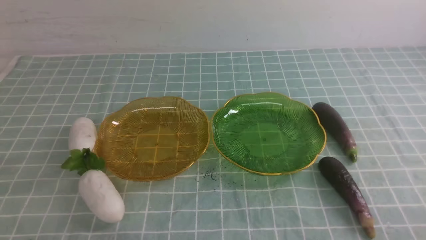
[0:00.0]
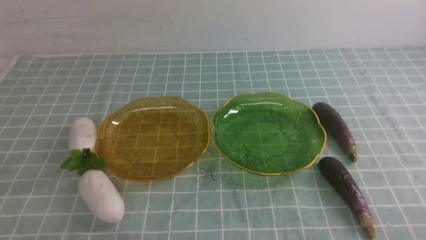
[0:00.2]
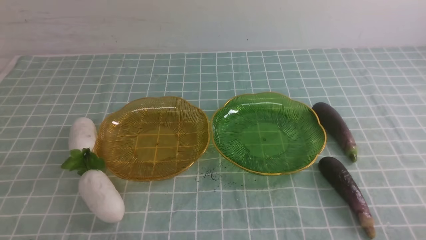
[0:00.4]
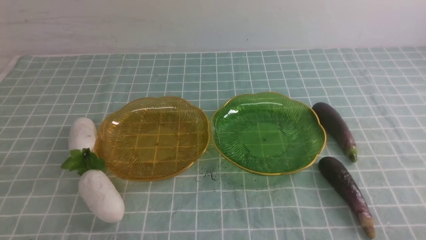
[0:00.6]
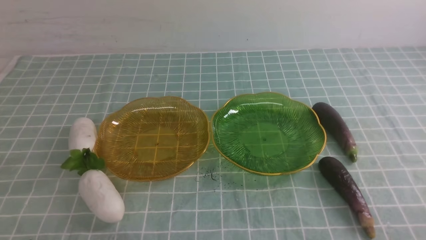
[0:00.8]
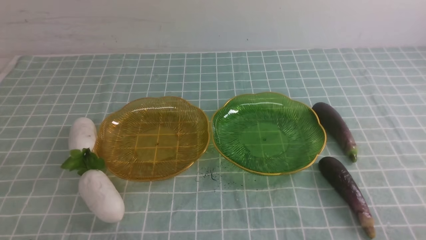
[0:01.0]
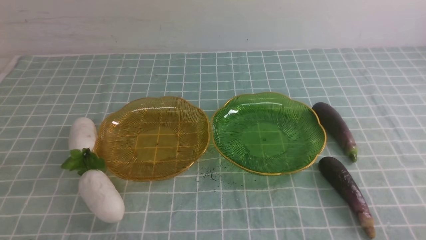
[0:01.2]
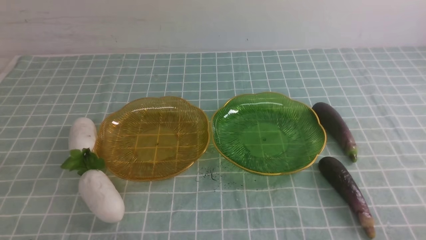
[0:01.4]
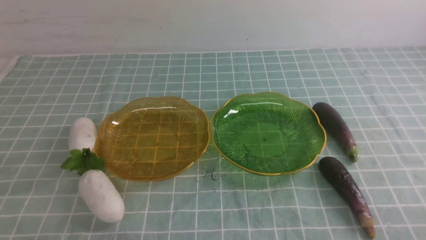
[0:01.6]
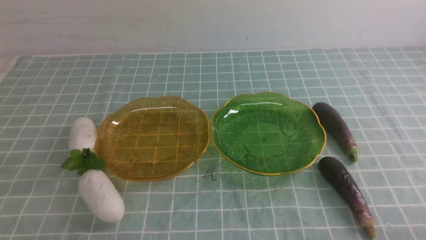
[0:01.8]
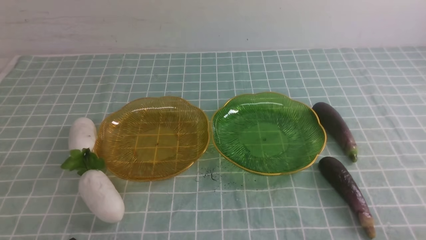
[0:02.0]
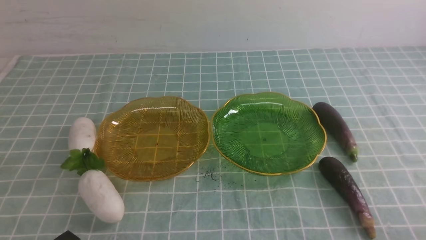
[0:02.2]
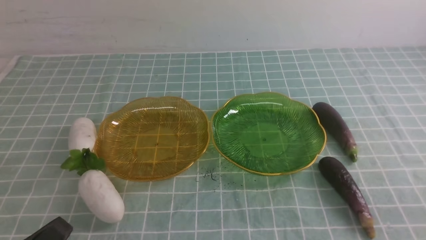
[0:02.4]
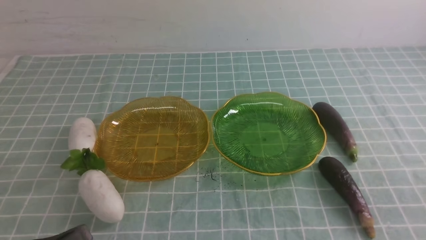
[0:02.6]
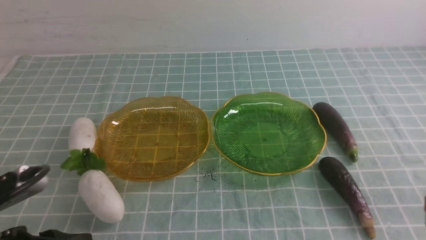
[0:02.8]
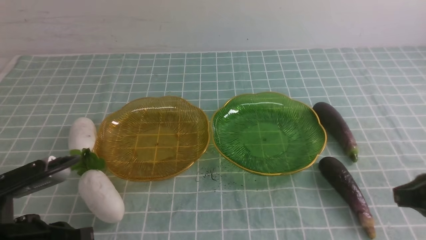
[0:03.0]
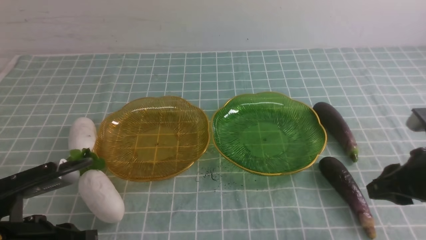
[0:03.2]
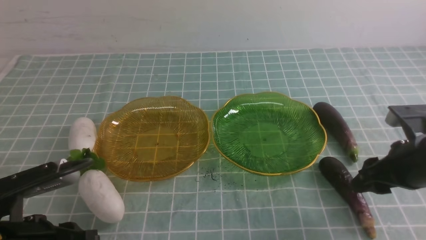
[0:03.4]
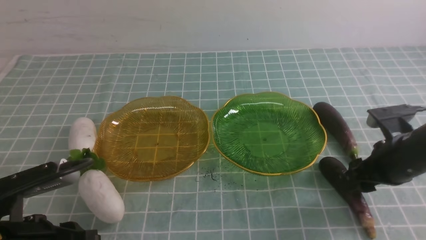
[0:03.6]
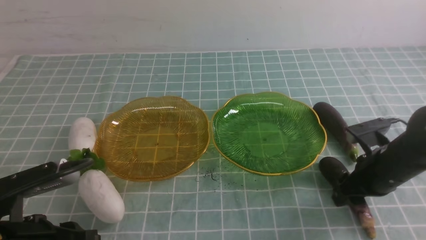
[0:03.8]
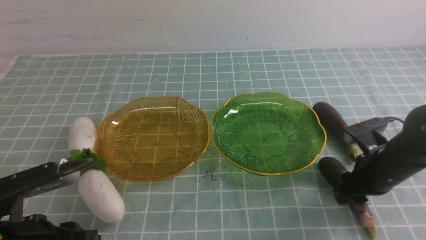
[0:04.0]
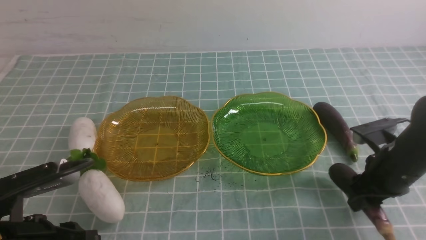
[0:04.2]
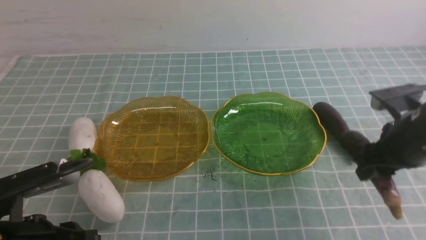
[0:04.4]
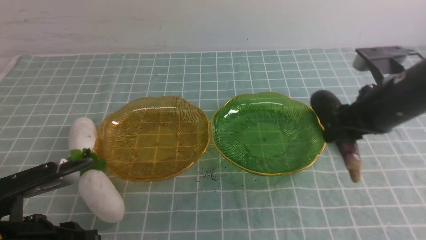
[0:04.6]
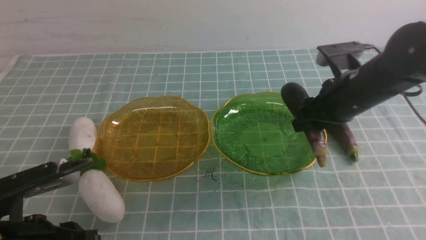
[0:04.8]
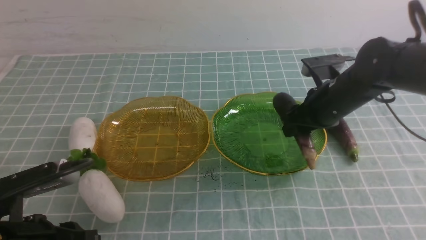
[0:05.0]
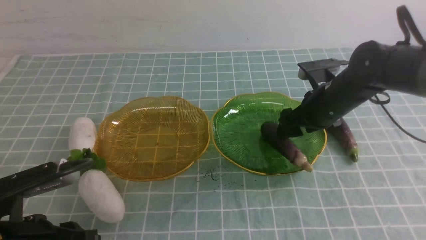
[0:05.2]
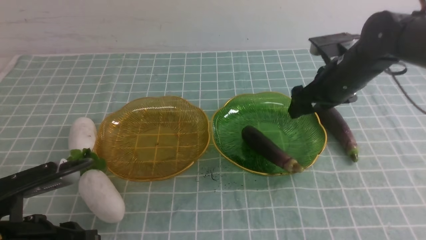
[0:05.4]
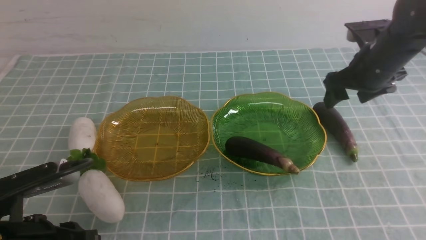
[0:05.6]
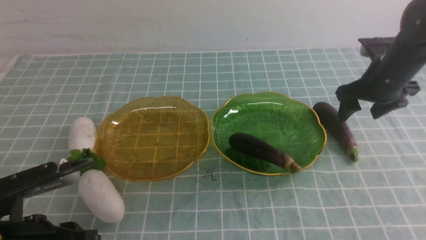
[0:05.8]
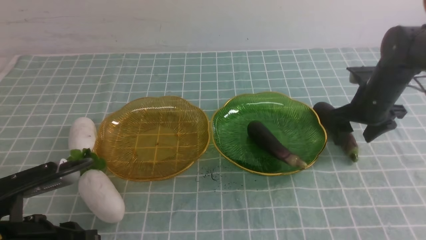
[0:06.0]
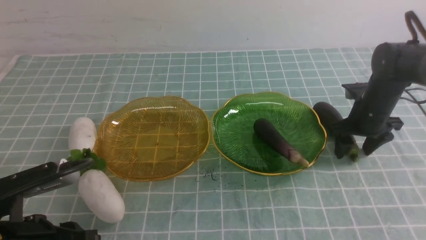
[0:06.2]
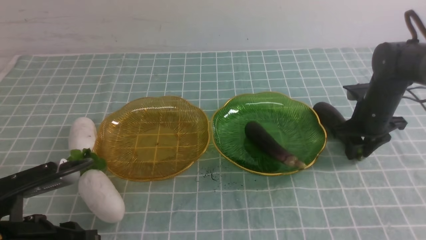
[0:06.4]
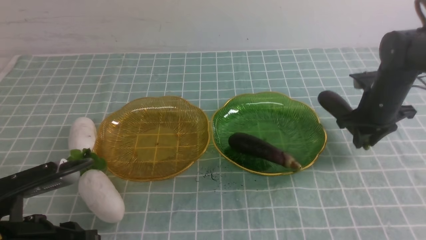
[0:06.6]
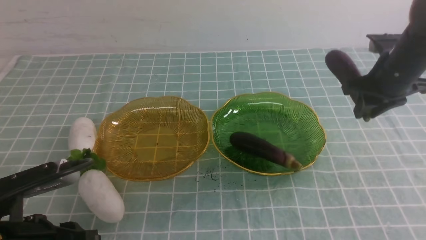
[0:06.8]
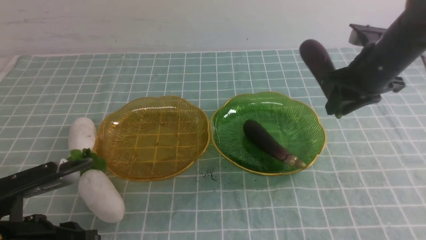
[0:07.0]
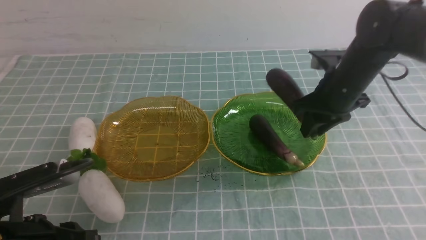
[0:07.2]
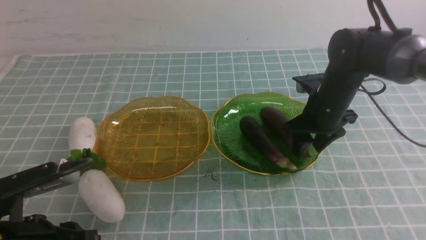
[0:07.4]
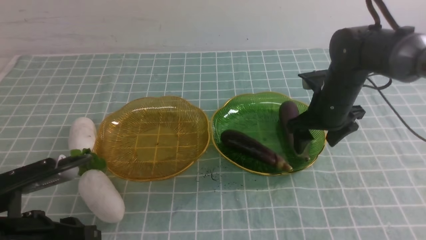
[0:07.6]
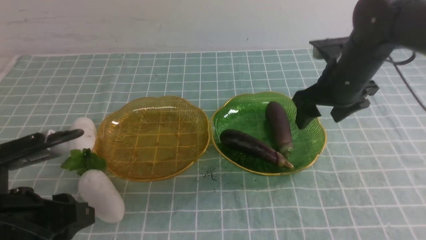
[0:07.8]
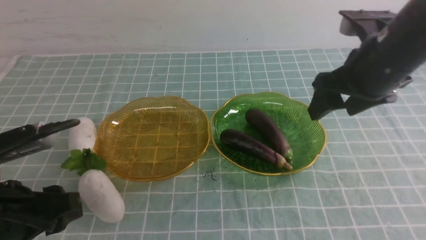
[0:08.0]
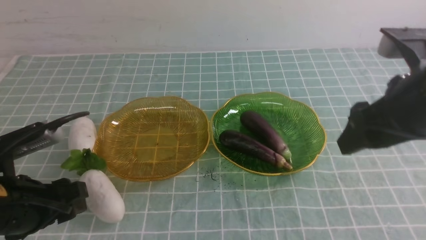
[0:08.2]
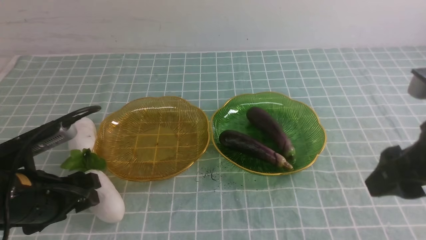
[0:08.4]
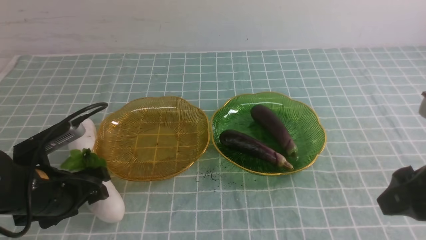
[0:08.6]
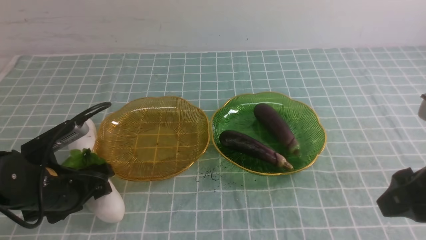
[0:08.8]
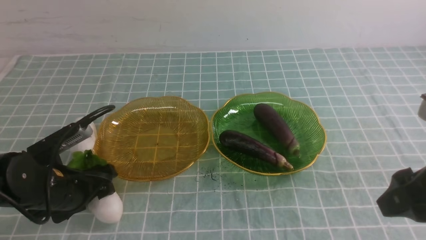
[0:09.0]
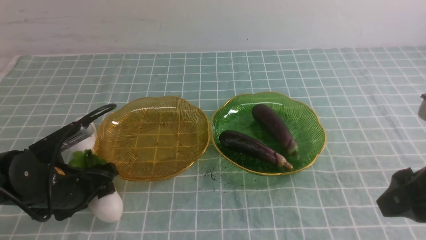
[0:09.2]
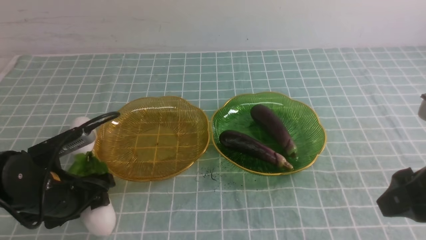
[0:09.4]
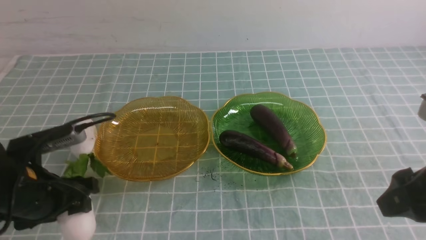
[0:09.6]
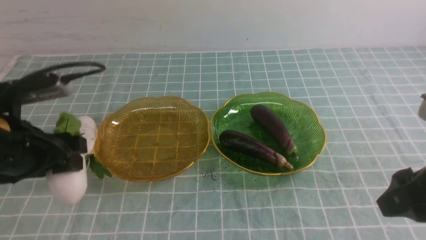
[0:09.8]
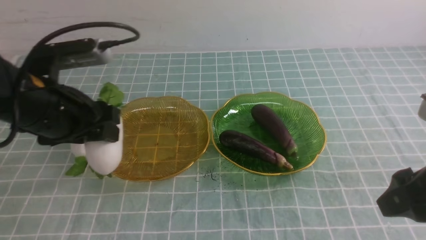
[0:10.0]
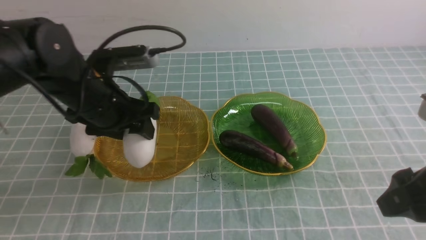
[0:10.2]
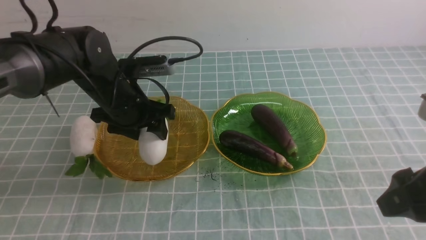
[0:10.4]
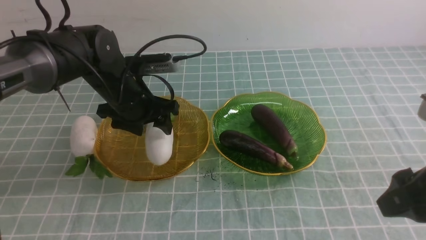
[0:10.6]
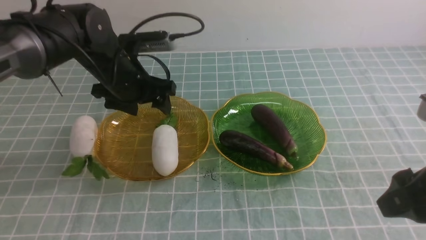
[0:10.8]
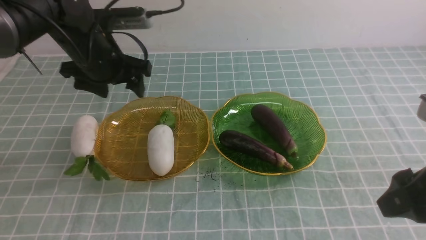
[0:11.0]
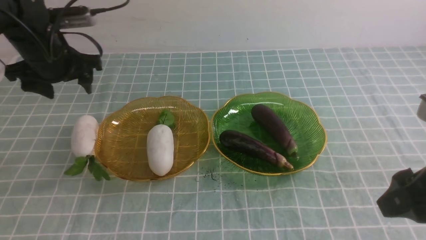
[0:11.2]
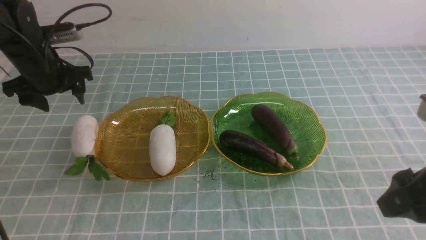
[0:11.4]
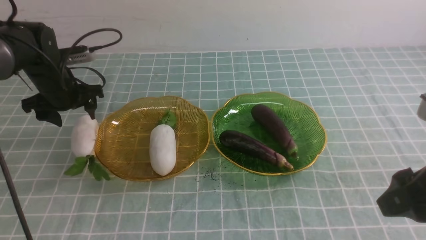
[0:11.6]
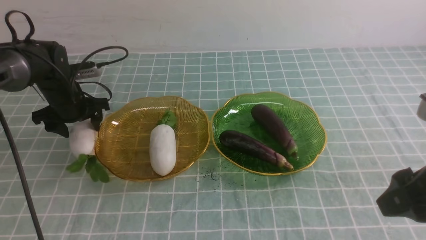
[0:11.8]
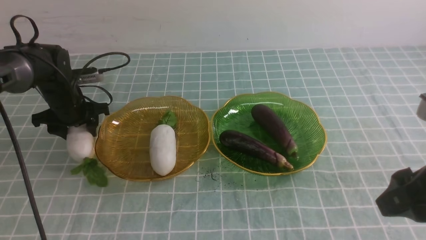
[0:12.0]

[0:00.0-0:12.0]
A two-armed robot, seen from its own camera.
Step, 0:00.0 to 0:07.6: use the right arm to grab an eggplant and put it into the right plate.
0:01.6 to 0:03.0: The left gripper moves forward and upward, roughly 10 cm. The right gripper heads forward and upward, covering some 15 cm.
0:03.0 to 0:04.4: The right gripper travels forward by some 10 cm.
0:04.4 to 0:06.0: The right gripper shifts some 15 cm forward and downward, and opens.
0:06.0 to 0:07.6: The right gripper goes some 10 cm to the left, and closes and opens again.
0:07.6 to 0:09.0: The right gripper is displaced backward by some 20 cm. Meanwhile the left gripper heads forward and downward, covering approximately 15 cm.
0:09.0 to 0:10.4: The left gripper is displaced forward, upward and to the right by approximately 15 cm.
0:10.4 to 0:12.0: The left gripper is displaced to the left, forward and downward by about 20 cm.

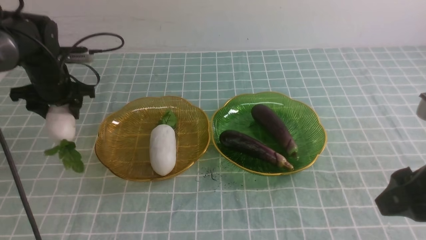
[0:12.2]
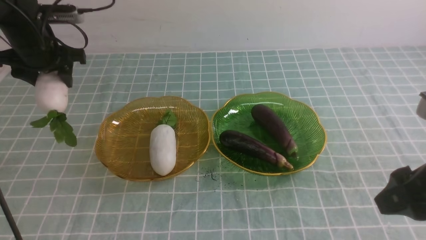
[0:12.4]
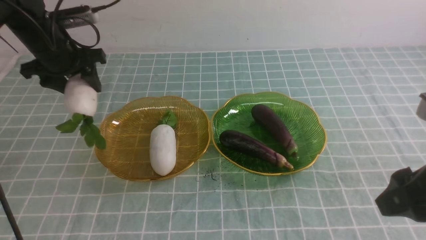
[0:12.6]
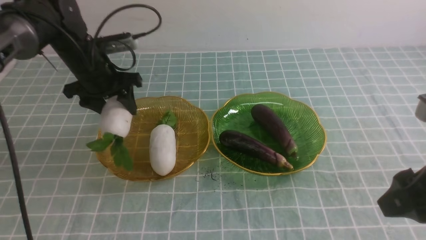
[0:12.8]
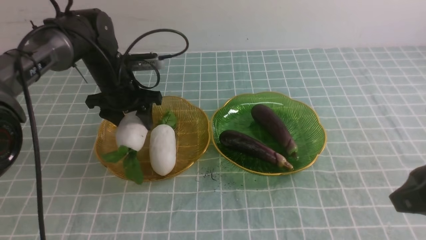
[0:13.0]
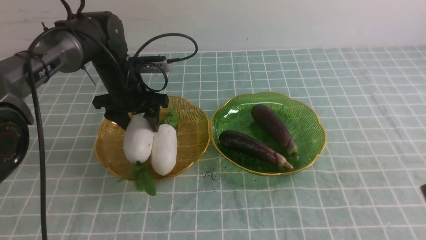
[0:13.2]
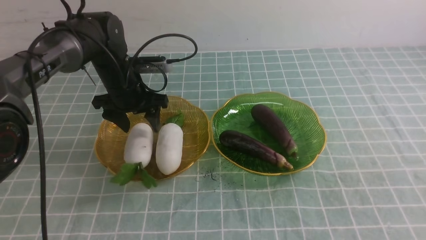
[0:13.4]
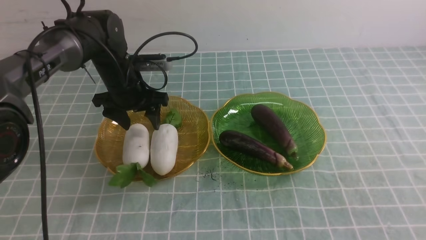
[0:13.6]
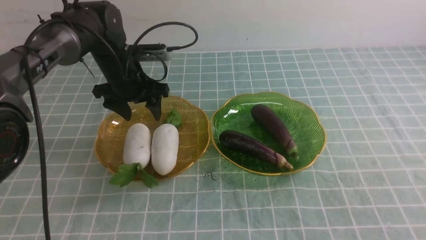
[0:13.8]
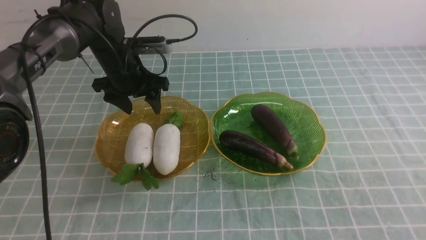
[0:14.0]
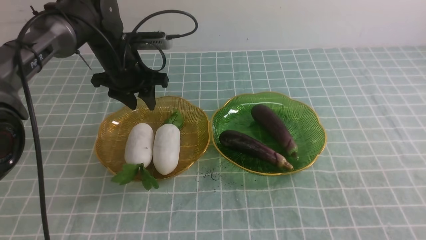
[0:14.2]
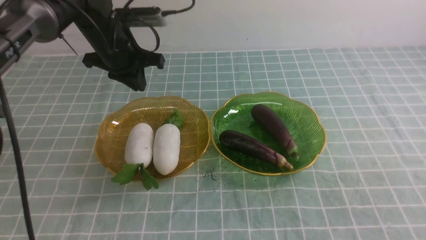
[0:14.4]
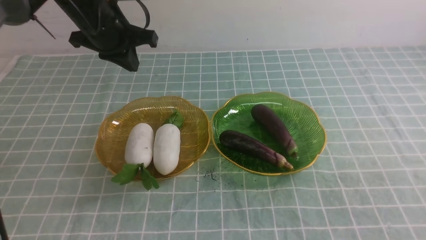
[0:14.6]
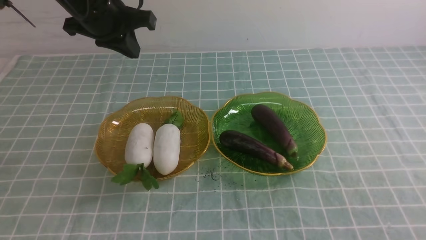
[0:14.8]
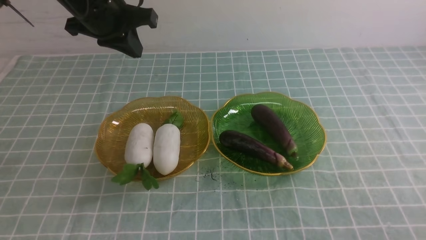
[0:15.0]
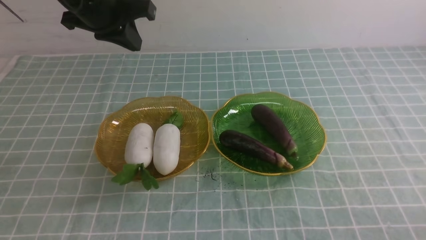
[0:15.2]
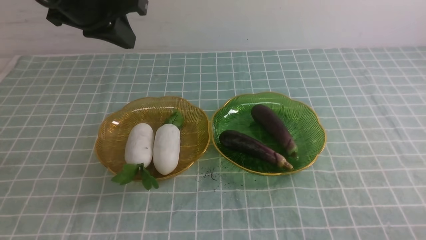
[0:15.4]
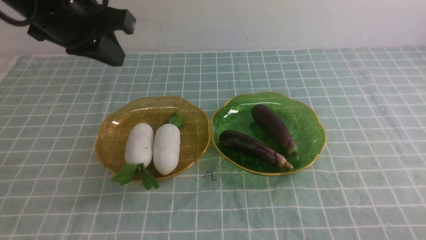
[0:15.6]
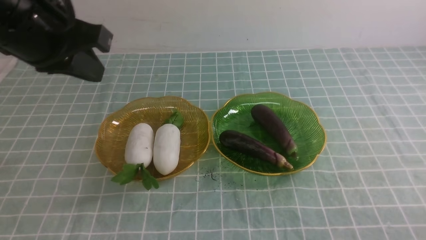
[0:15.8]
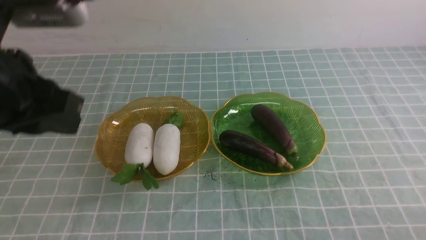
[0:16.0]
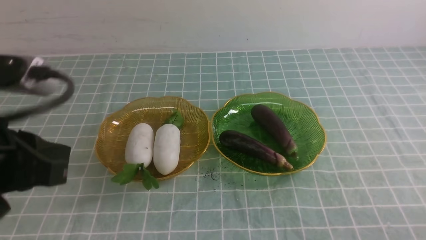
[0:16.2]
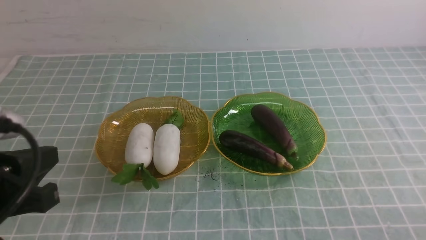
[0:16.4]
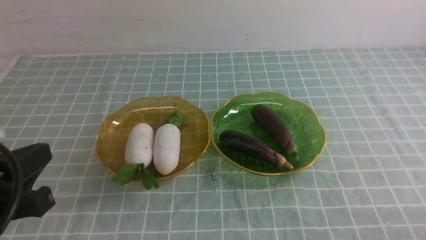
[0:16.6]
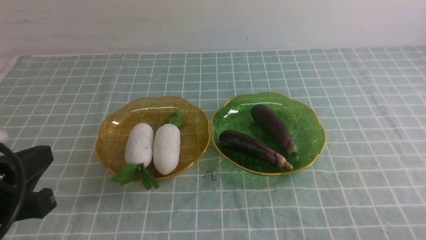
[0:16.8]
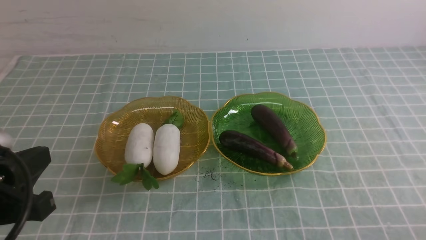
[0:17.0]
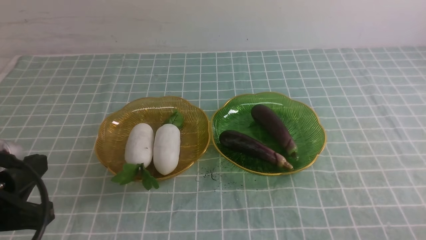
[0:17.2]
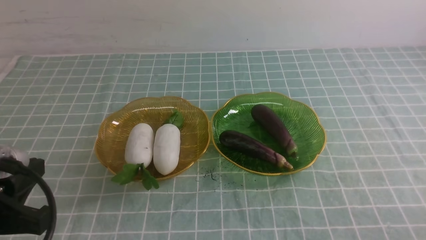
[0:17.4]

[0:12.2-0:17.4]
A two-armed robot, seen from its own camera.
0:12.2 to 0:14.0: The right gripper is displaced backward by roughly 10 cm, and closes. The left gripper goes some 15 cm to the right.
0:14.0 to 0:15.6: The left gripper goes about 20 cm upward and backward, and closes. The right gripper goes about 10 cm downward.
0:15.6 to 0:17.4: The left gripper shifts roughly 25 cm backward and downward.
